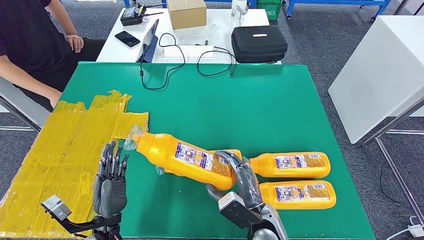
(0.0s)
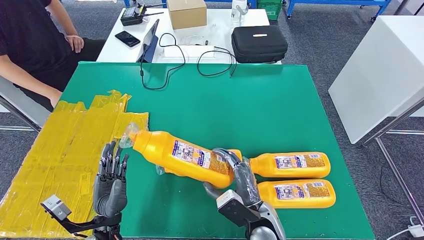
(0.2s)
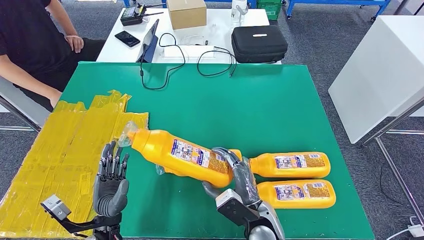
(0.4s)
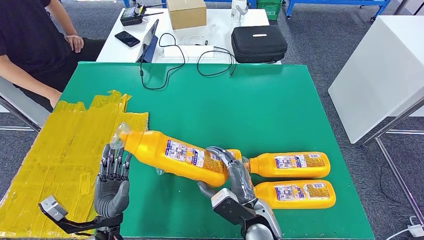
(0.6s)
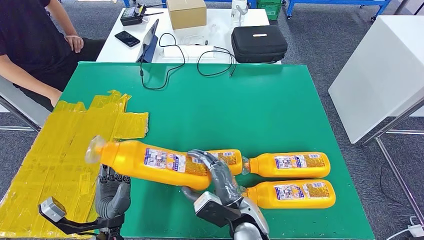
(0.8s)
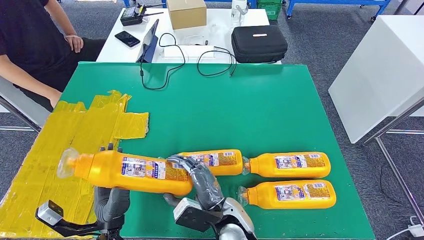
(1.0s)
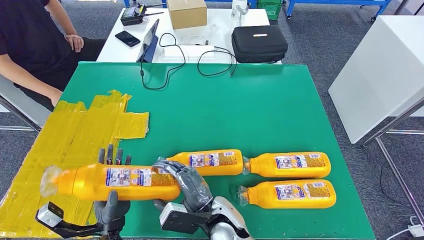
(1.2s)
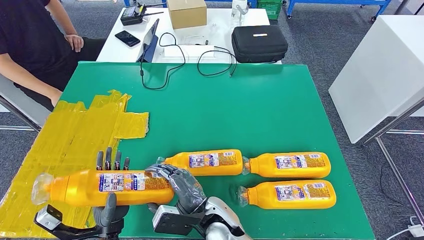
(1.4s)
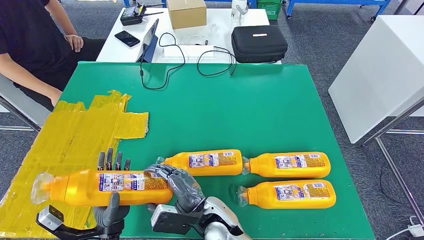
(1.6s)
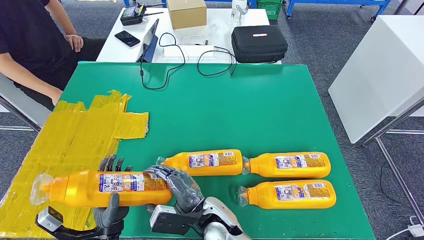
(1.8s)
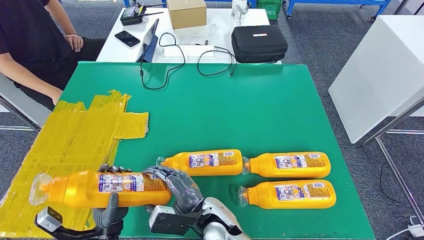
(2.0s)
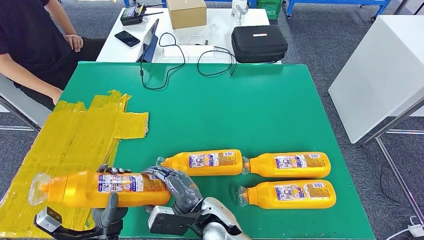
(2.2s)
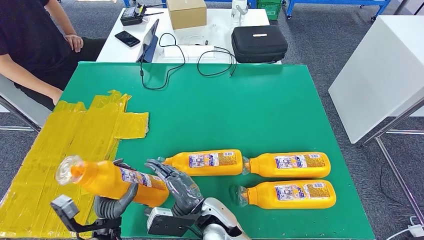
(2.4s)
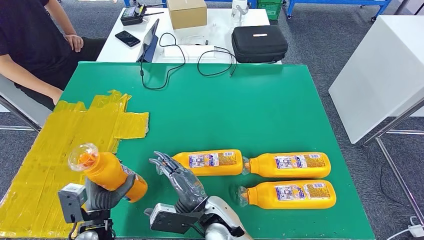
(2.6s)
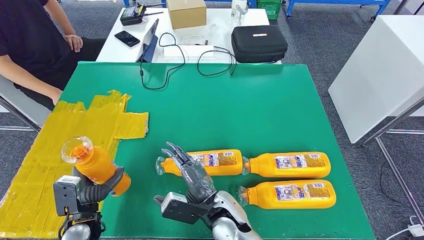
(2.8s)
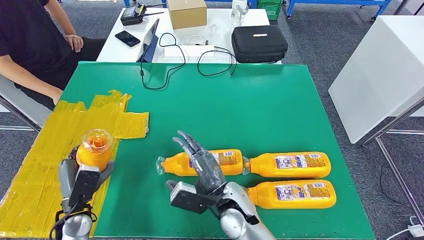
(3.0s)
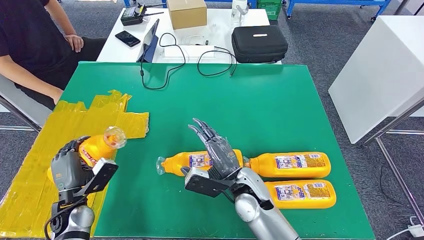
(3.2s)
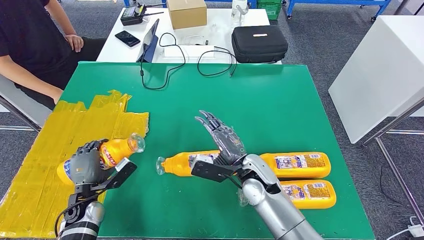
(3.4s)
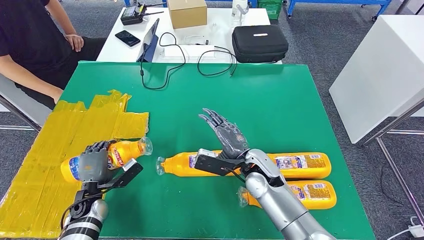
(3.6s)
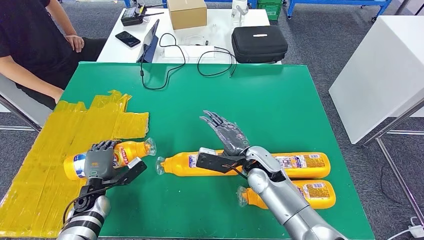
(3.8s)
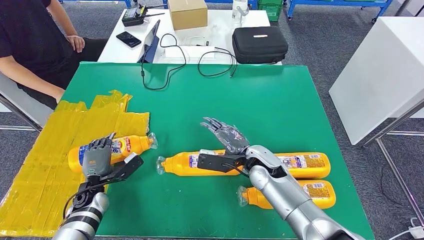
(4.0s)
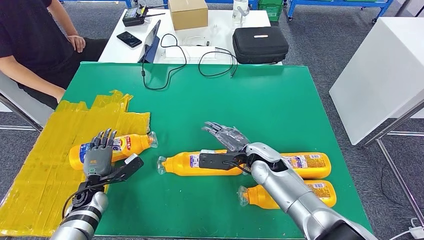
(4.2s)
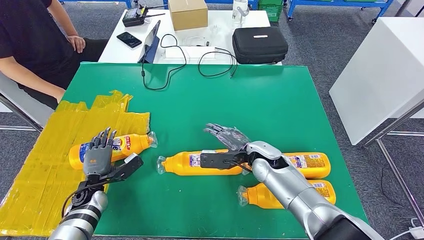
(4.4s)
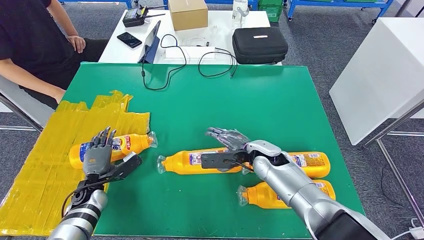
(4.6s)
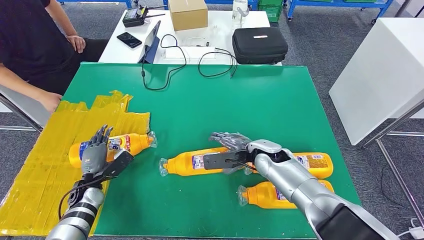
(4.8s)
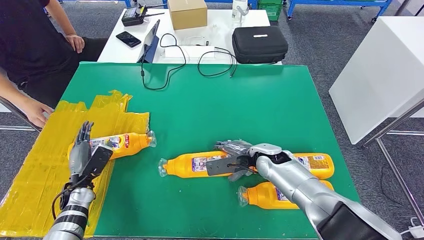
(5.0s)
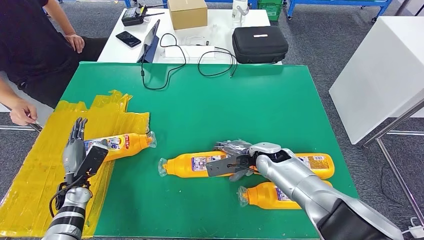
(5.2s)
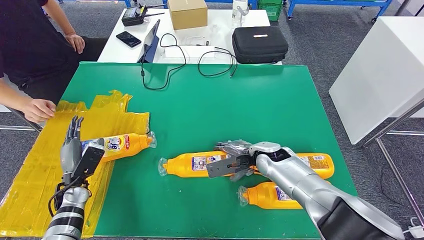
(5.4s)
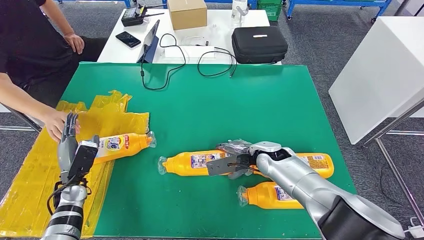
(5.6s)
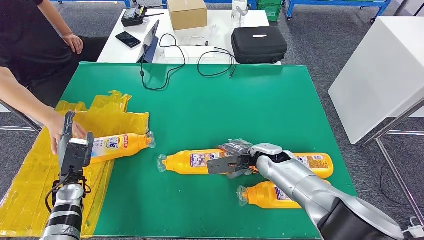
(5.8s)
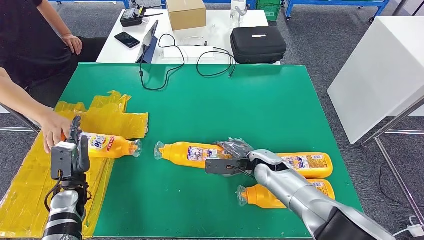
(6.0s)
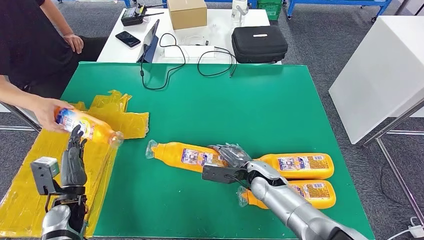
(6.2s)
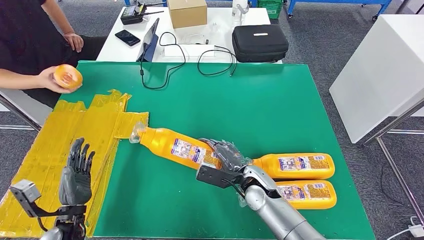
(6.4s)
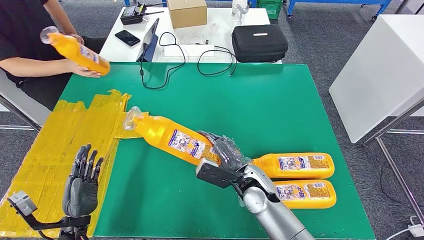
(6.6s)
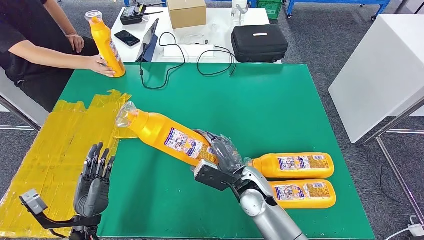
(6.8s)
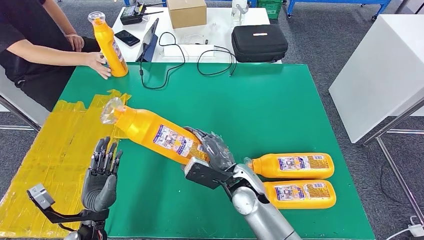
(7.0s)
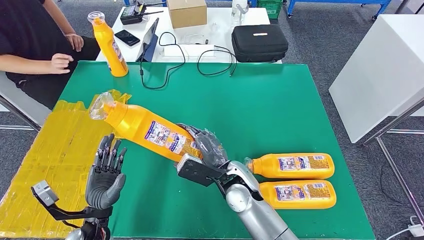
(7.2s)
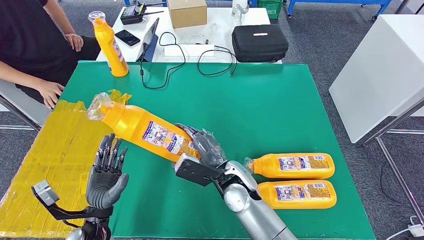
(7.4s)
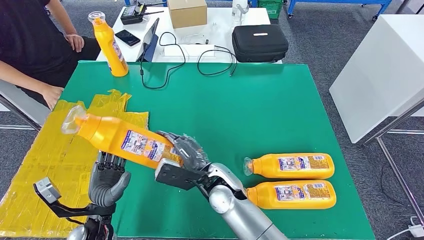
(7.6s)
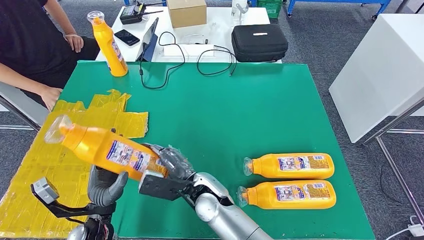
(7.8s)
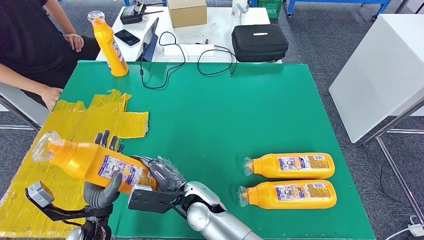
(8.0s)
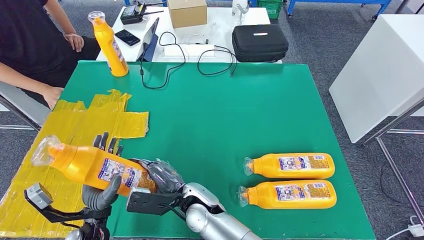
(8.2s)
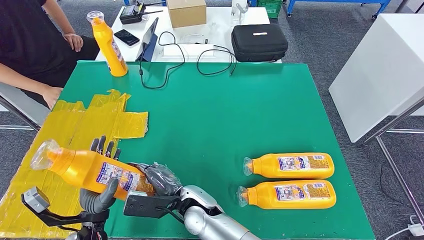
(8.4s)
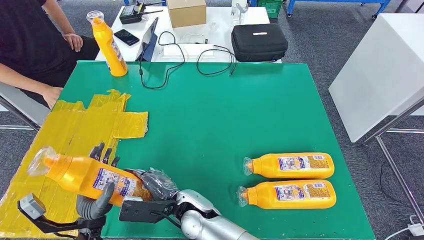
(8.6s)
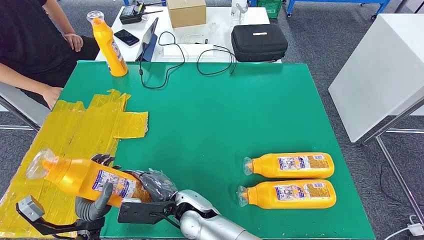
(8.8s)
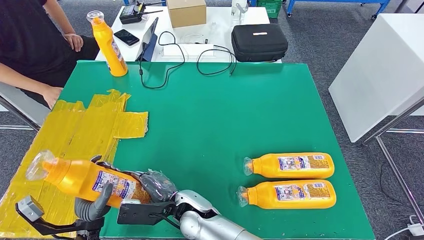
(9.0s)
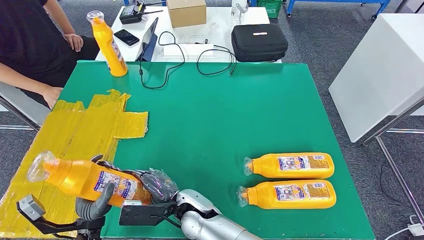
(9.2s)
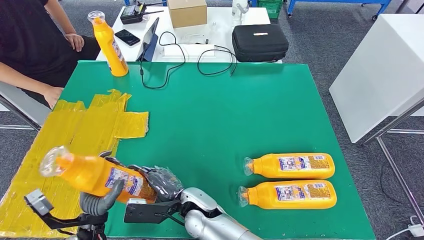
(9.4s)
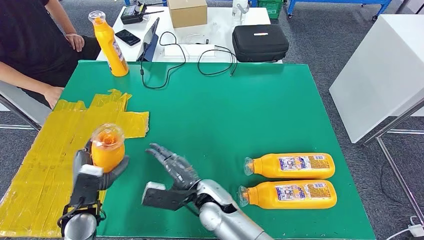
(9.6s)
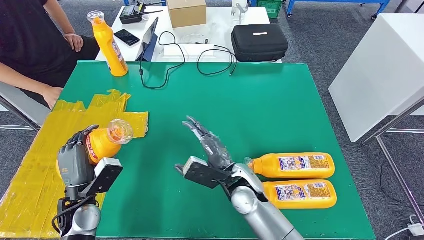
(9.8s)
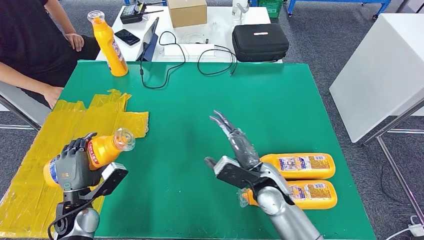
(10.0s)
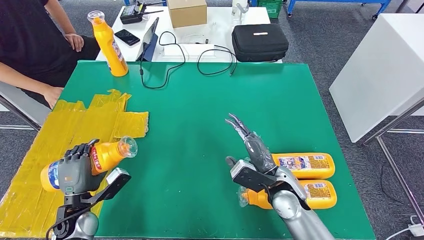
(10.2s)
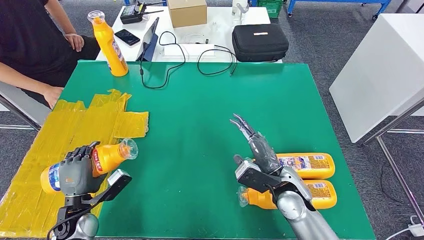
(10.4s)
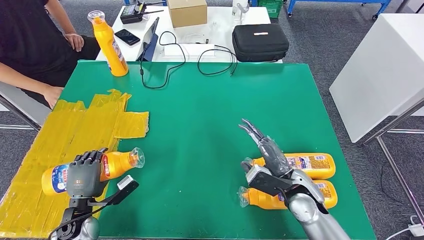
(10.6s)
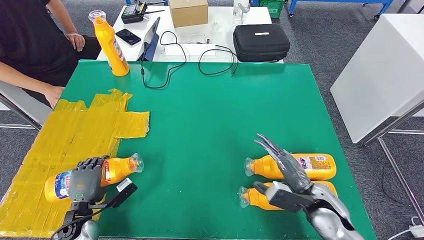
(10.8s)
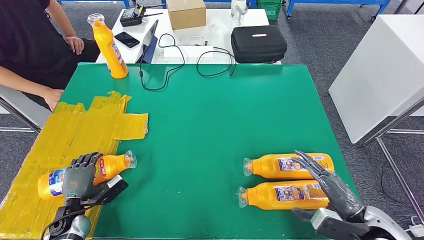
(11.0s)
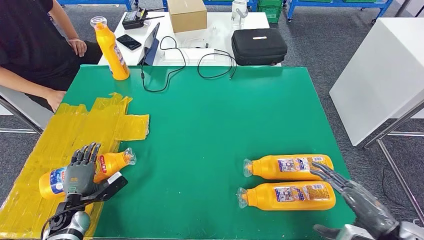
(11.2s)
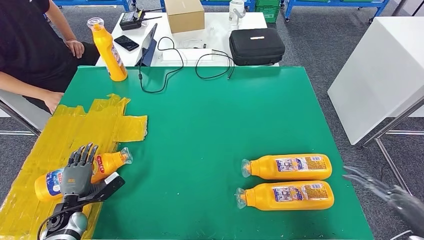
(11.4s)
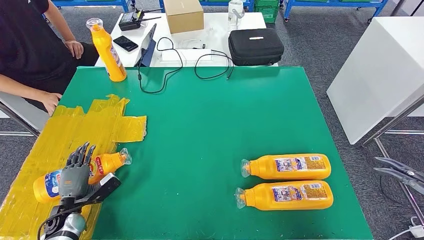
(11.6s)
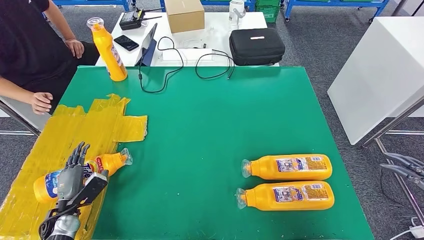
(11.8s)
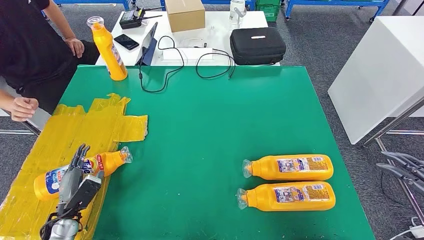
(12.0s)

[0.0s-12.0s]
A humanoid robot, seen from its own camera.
Step, 1.0s to 5.4s: Flip the fast-moving consumer goods bottle to the front side.
Step, 5.6s to 9.2s: Pick up the fast-moving consumer goods bottle from the table.
0.0s to 1.6s: The right hand heads to the left, covering roughly 10 cm.
1.6s to 3.0s: The right hand shifts by approximately 5 cm. The left hand shifts roughly 10 cm to the left and forward.
7.6s to 9.0s: The right hand goes about 10 cm to the left, backward and downward.
9.0s to 10.4s: The left hand moves to the left and forward, approximately 10 cm. Meanwhile the right hand goes some 25 cm to the right.

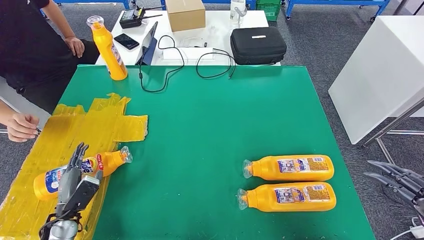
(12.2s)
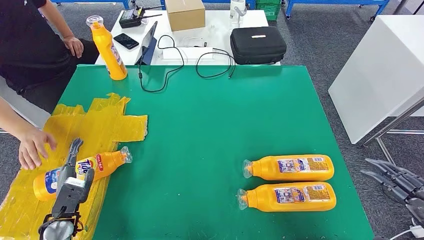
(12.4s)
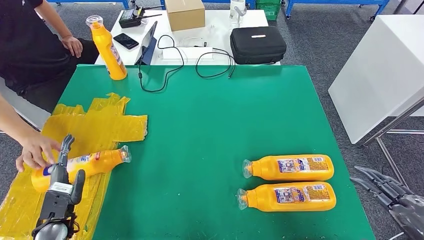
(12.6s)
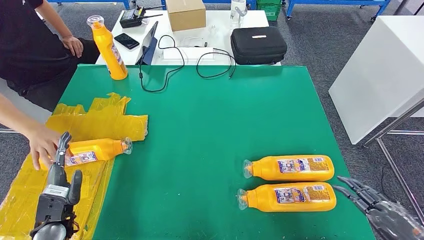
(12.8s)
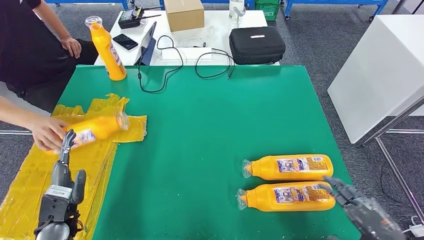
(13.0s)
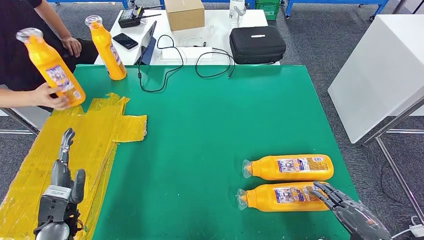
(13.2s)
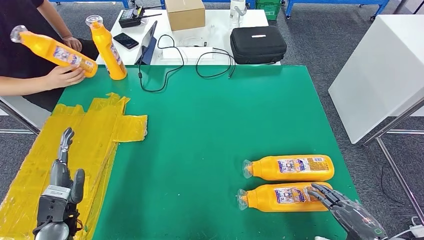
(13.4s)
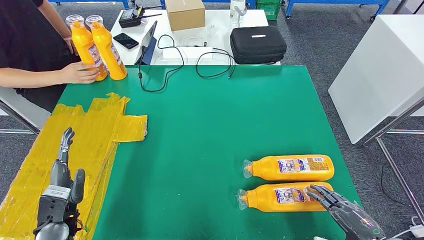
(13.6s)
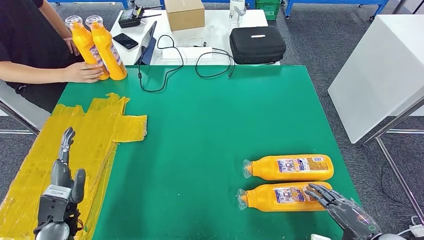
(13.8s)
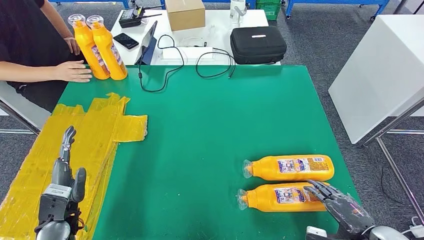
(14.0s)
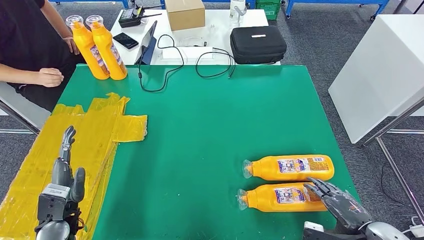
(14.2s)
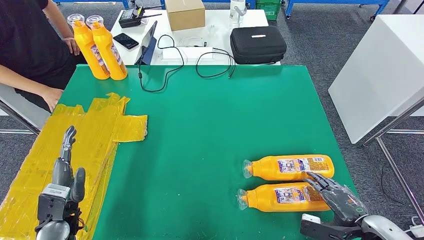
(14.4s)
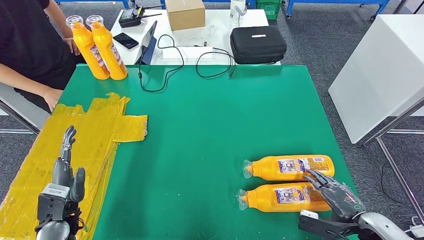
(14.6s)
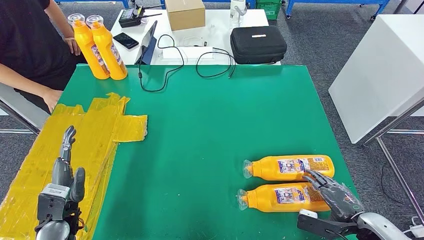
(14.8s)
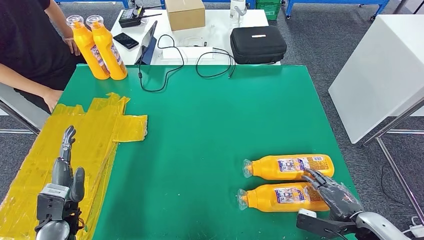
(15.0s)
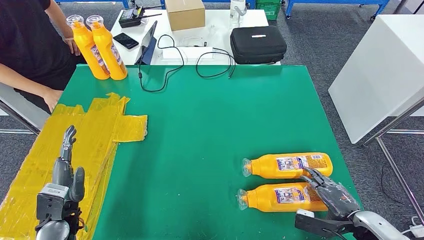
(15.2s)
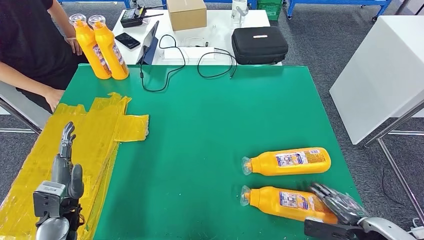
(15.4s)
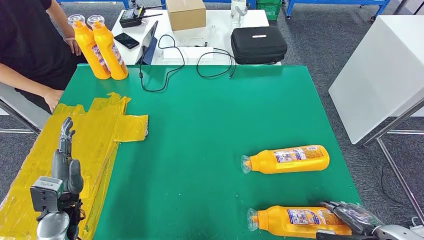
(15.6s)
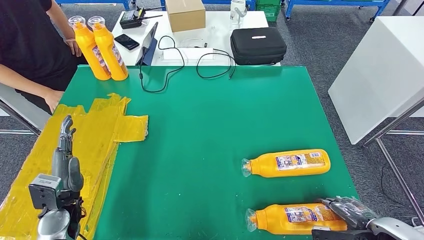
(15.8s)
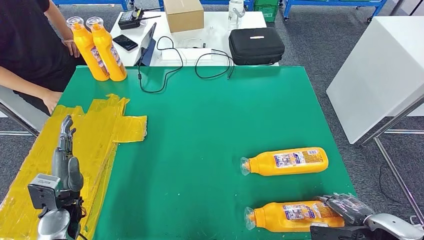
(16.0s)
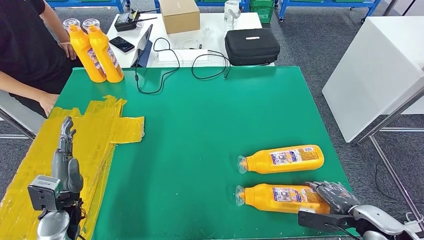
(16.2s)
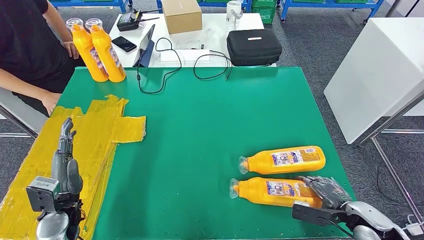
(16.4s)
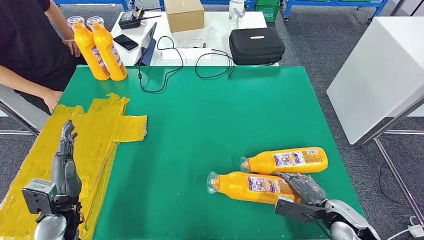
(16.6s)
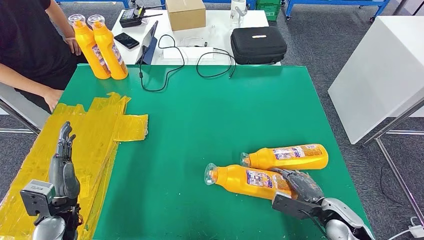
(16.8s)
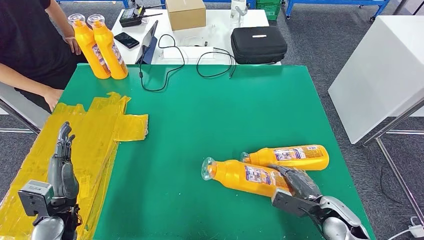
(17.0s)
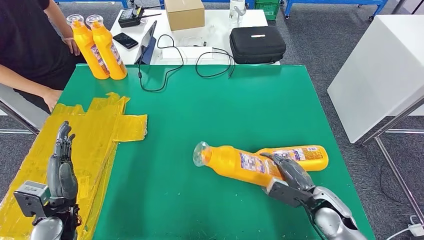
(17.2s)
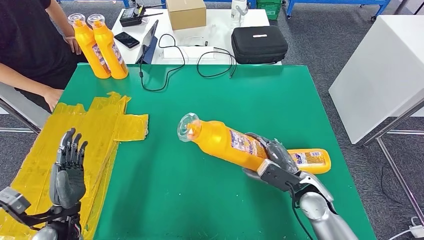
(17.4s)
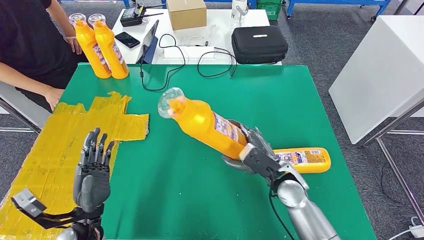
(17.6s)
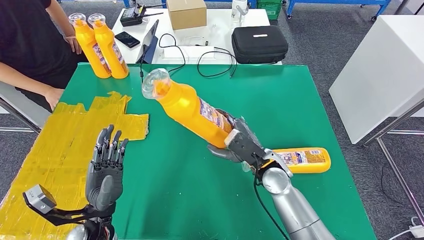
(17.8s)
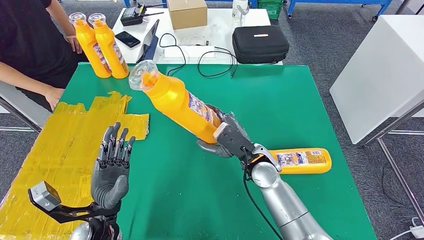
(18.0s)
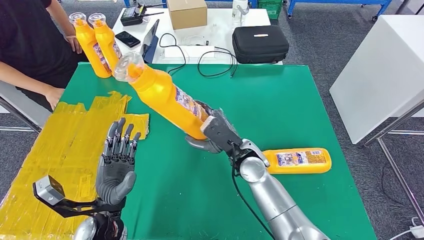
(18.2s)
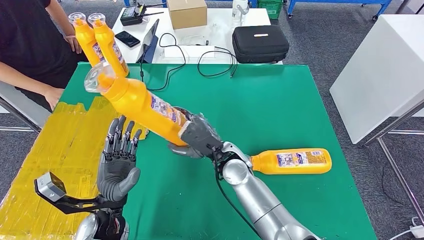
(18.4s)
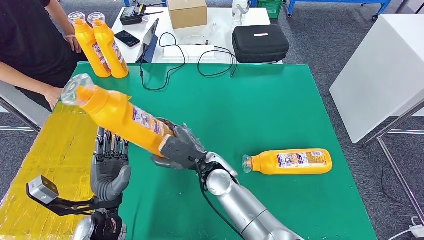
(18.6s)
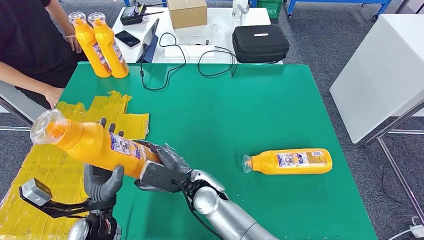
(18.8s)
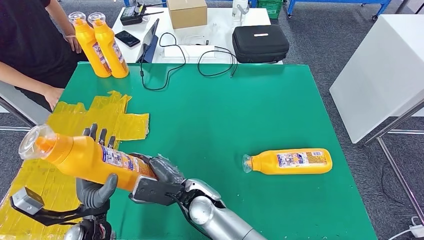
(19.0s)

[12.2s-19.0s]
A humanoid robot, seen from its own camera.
12.2s to 13.6s: The right hand moves downward, about 20 cm; the left hand travels upward by about 5 cm.
13.6s to 15.0s: The right hand travels forward by some 5 cm.
